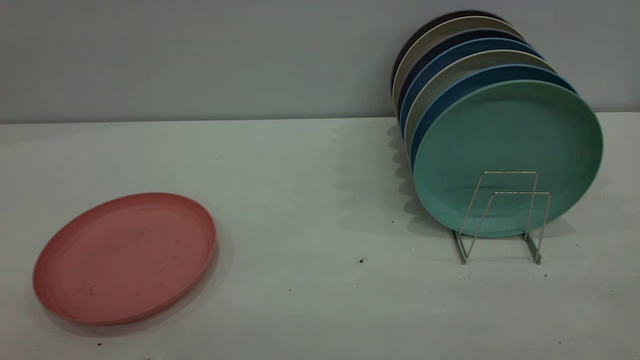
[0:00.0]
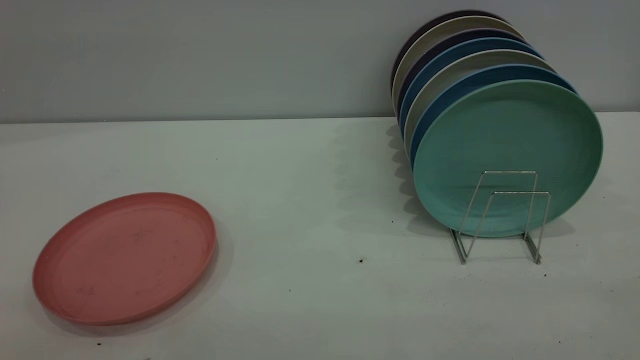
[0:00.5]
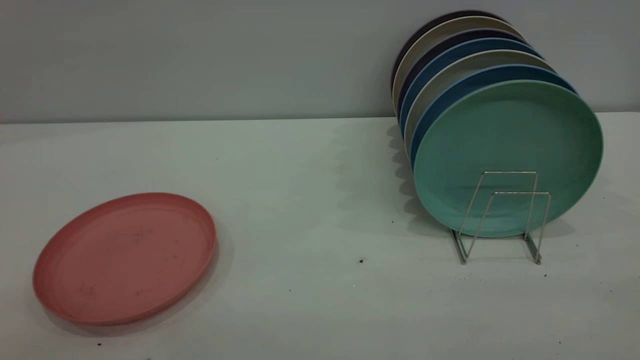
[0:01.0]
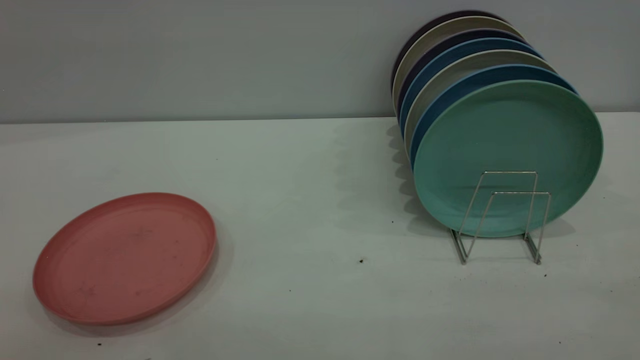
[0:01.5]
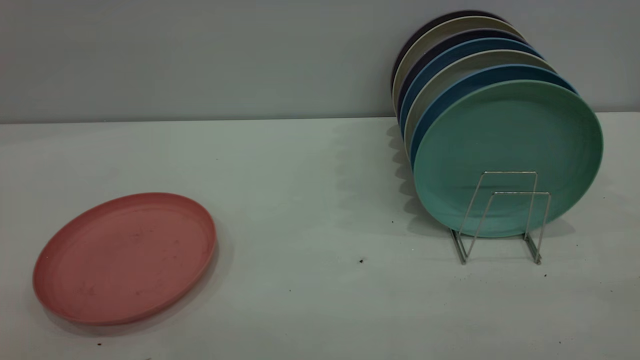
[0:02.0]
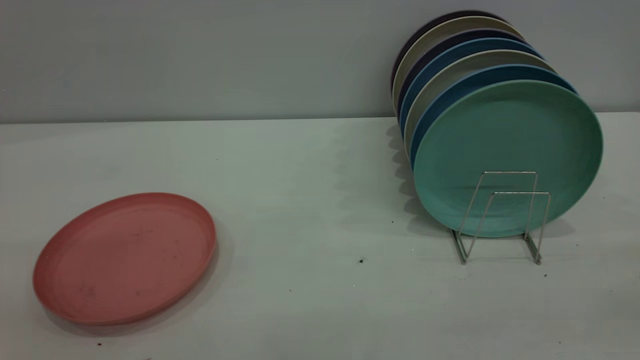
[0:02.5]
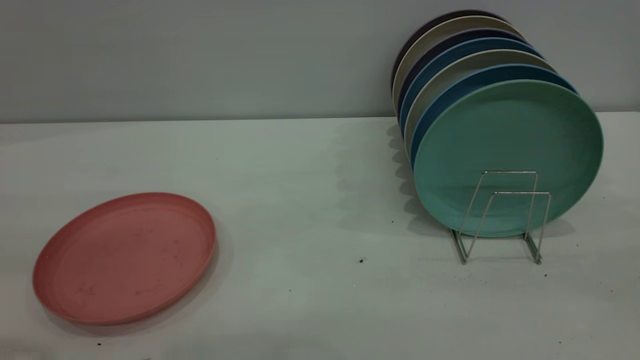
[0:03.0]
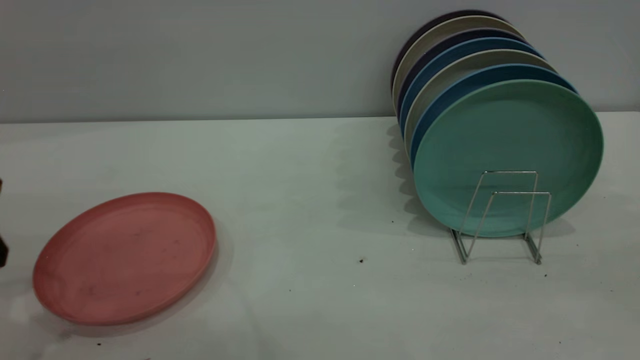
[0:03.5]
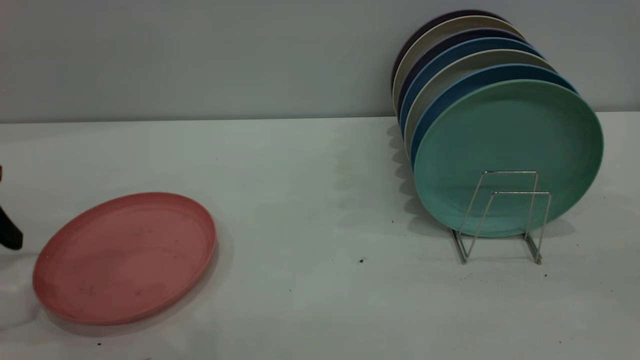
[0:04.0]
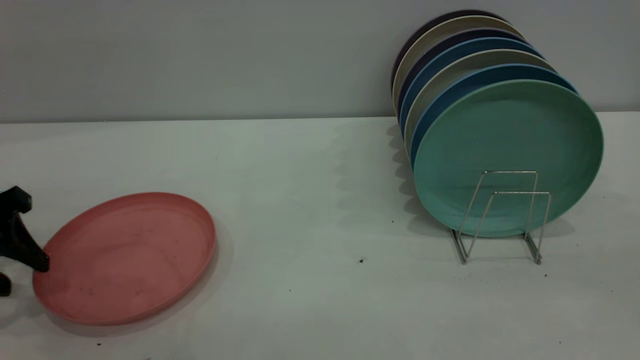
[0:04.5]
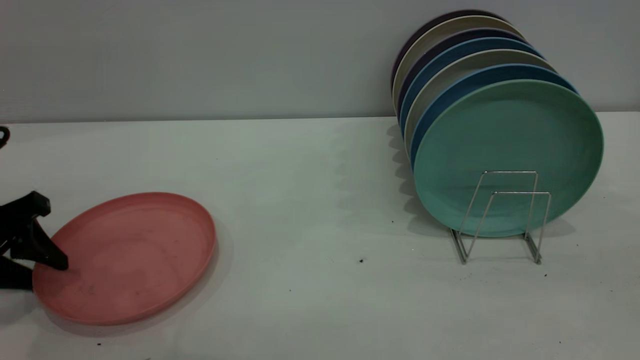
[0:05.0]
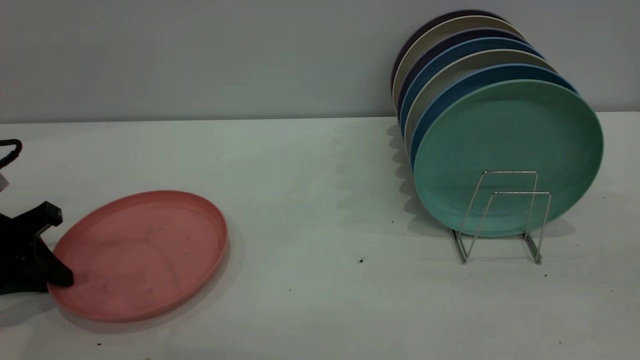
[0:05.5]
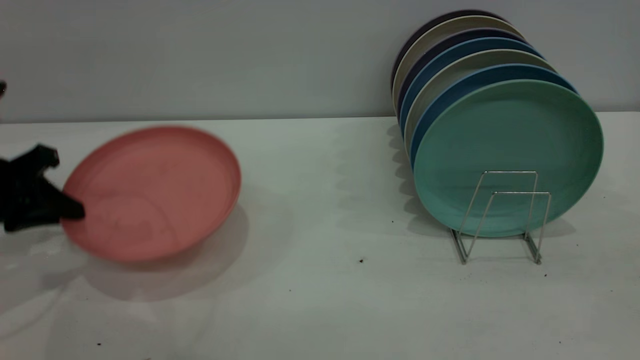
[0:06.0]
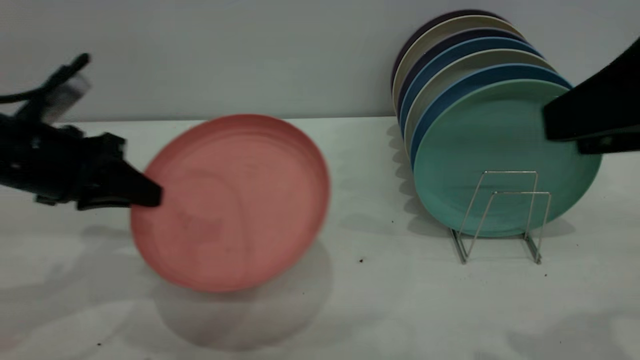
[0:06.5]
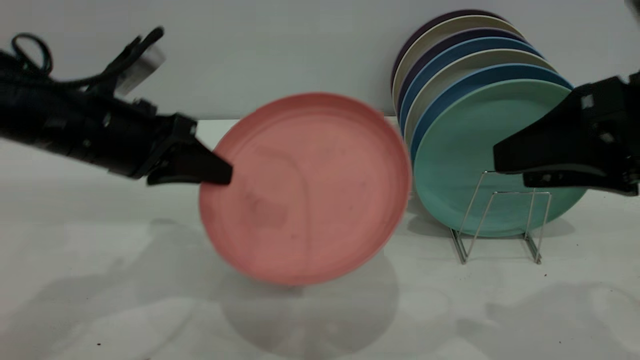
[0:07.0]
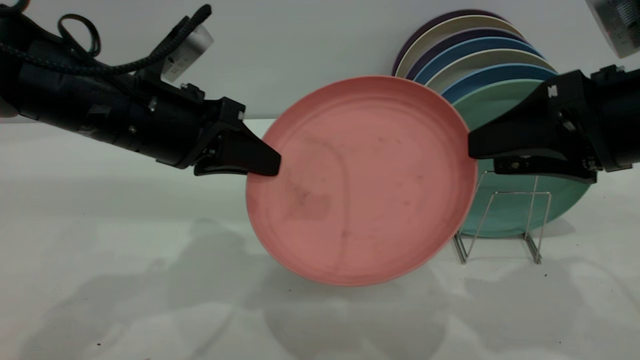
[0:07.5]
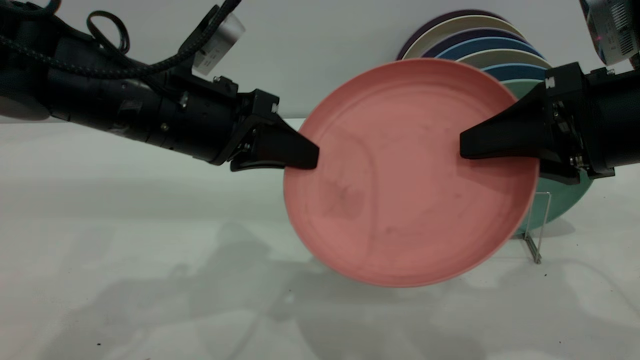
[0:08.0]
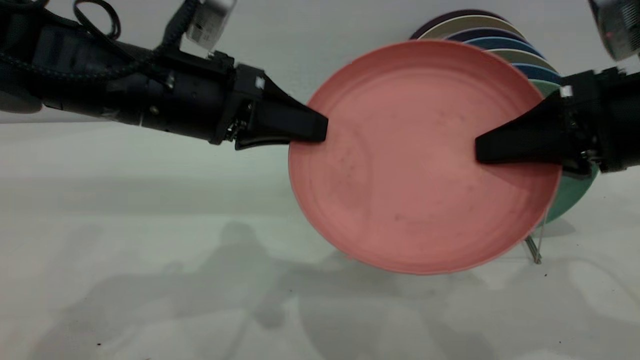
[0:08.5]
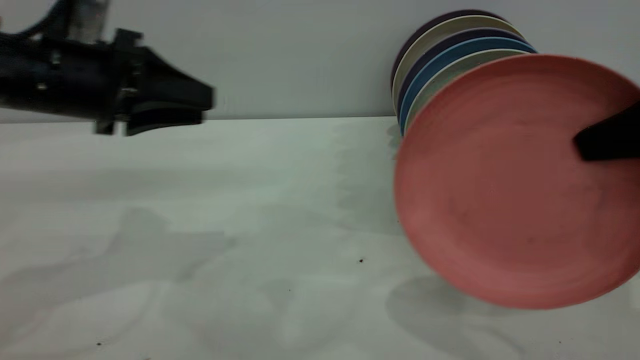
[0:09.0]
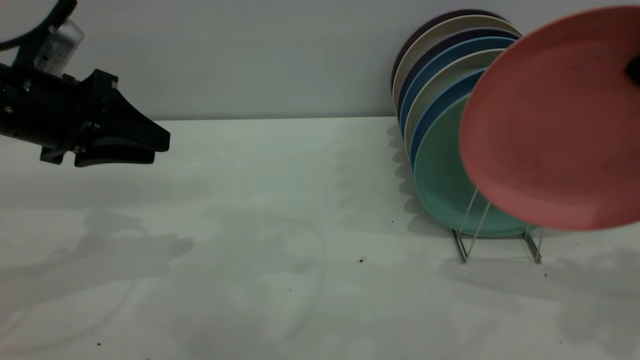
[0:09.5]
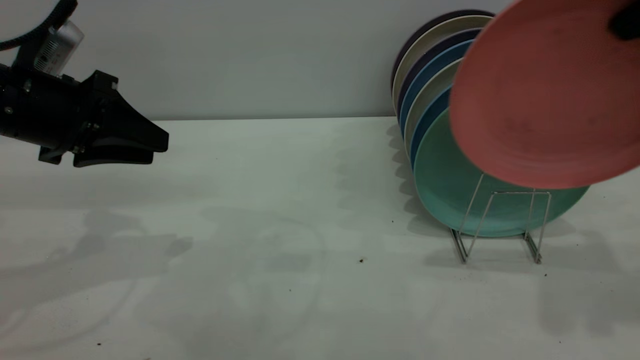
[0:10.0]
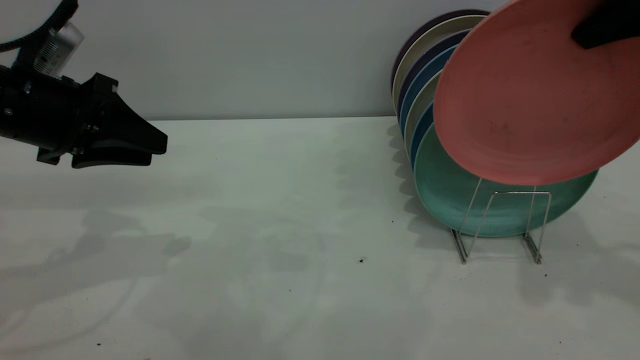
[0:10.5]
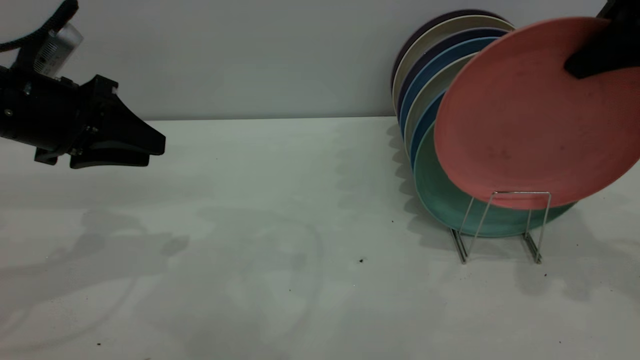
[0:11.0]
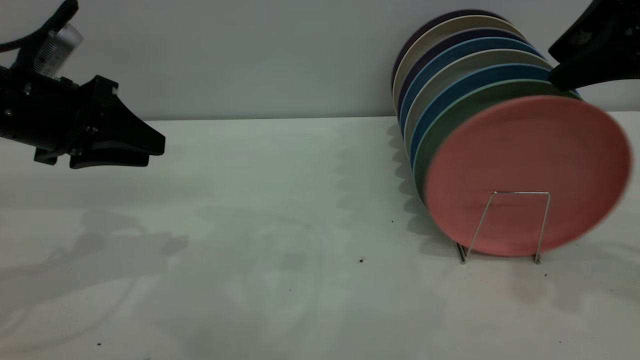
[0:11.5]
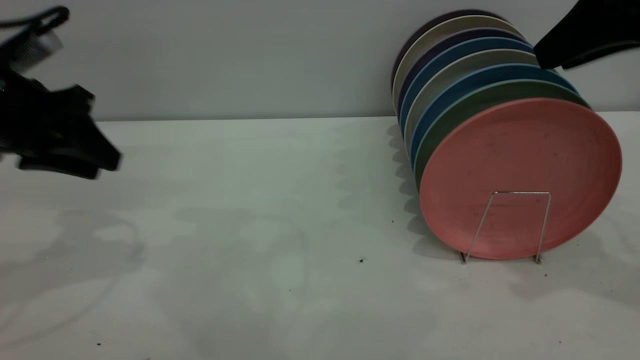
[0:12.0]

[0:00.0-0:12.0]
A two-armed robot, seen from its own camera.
Task of the whole recording: put the plate on the plate rack.
Step, 0:00.0 to 0:05.5: Pick up the plate with the left gripper.
Step, 0:06.0 to 0:08.5: Pass the plate from the left gripper to the right gripper.
0:00.0 to 0:02.0: Neither gripper changes place.
0:04.0 to 0:06.0: The left gripper changes place by roughly 5 cm, and closes up.
0:06.0 to 0:08.0: The left gripper is displaced to the right by approximately 20 cm, while the right gripper shifts roughly 20 cm forward and downward, and closes its fingers.
0:08.0 to 0:10.0: The left gripper shifts some 15 cm to the left, and opens. Meanwhile the right gripper heads upward and to the right, covering some 15 cm, and closes its fingers.
0:10.0 to 0:12.0: The right gripper opens.

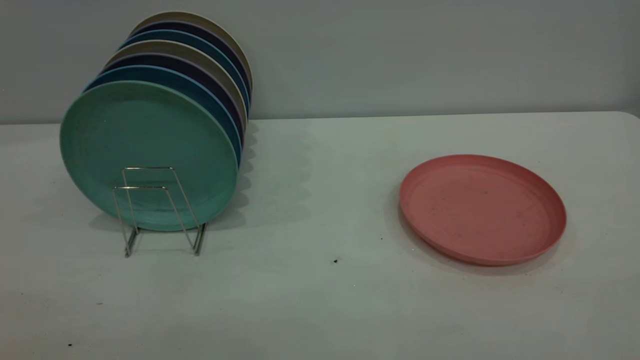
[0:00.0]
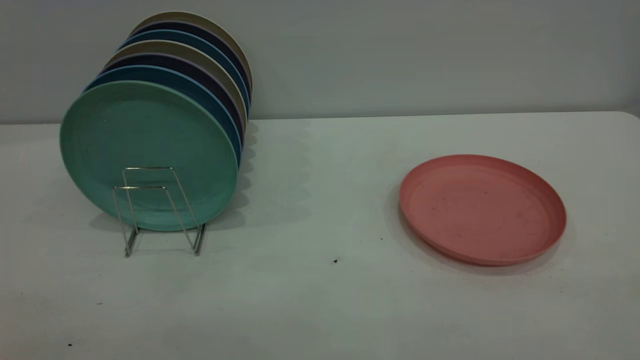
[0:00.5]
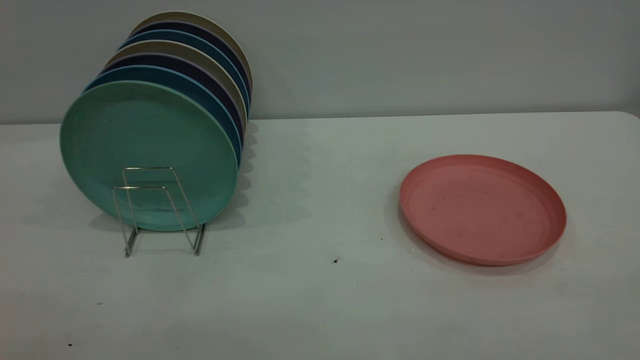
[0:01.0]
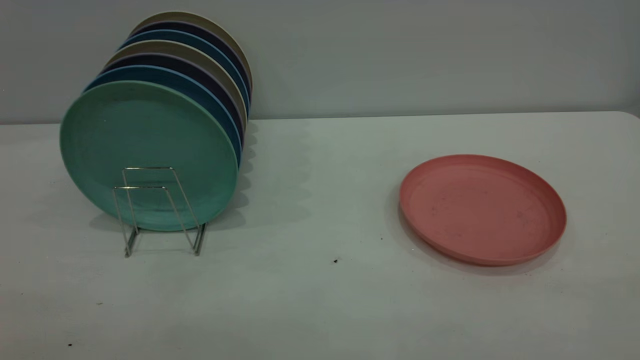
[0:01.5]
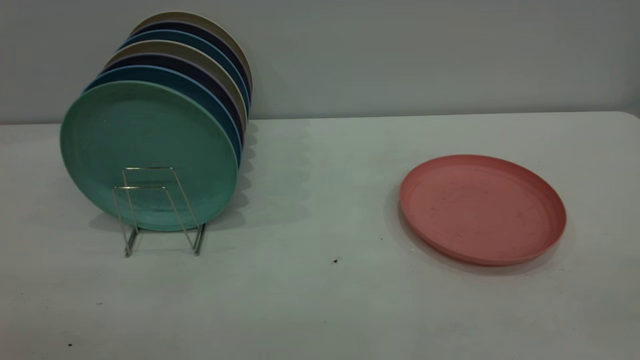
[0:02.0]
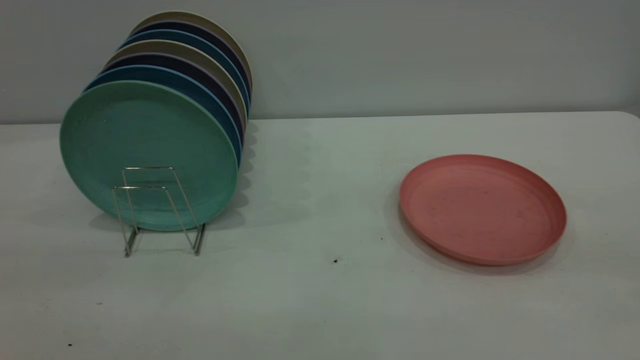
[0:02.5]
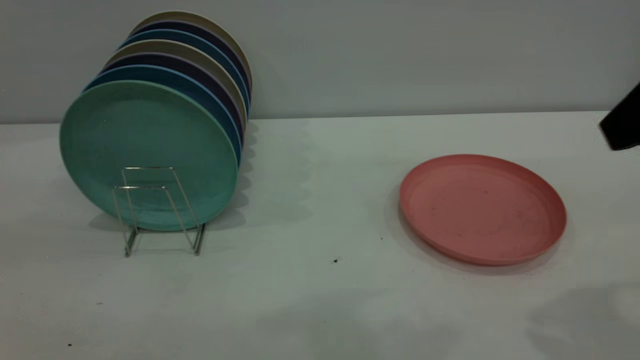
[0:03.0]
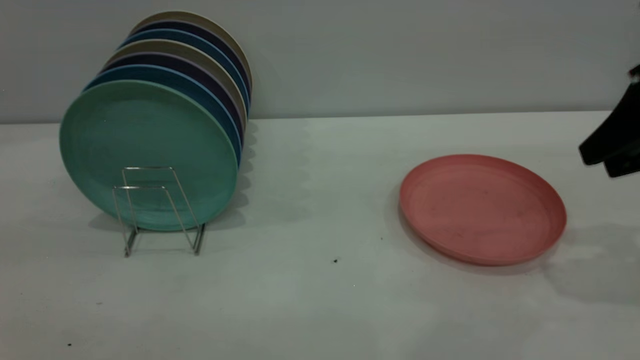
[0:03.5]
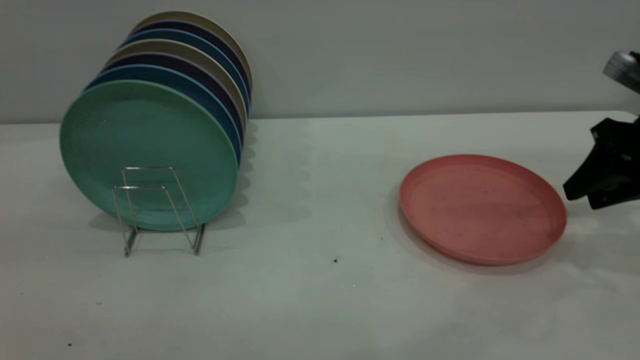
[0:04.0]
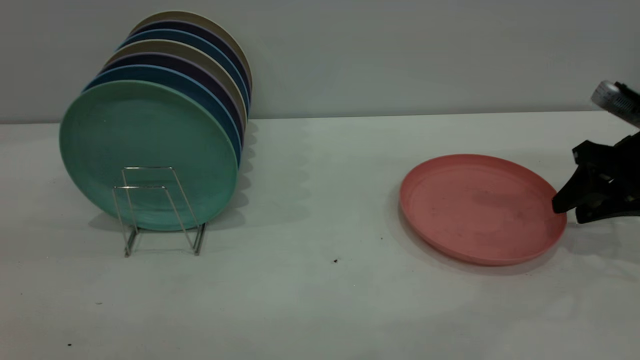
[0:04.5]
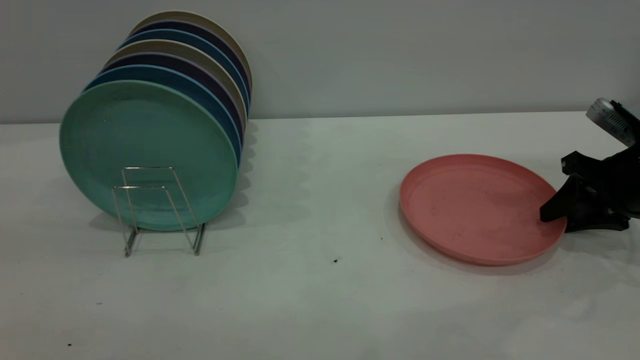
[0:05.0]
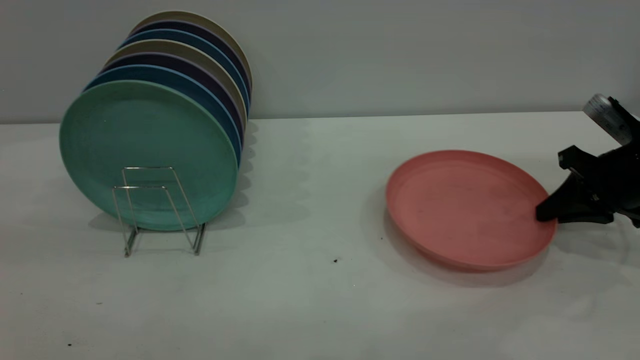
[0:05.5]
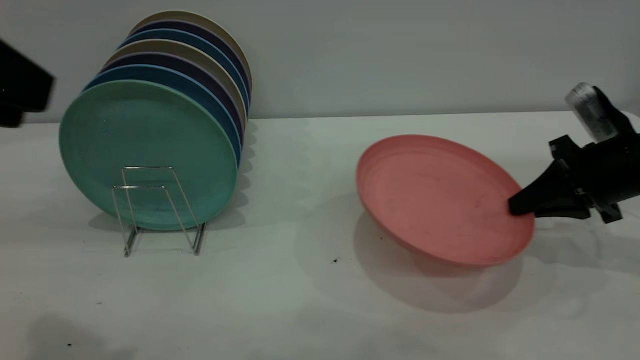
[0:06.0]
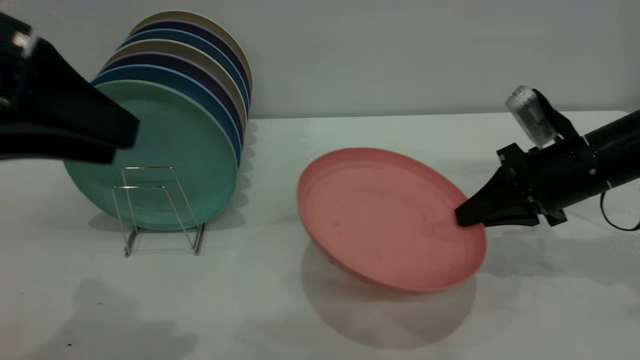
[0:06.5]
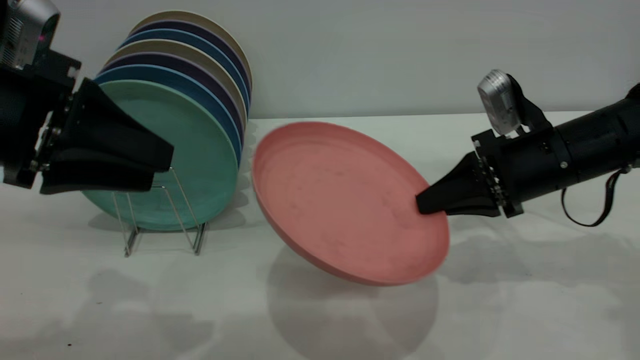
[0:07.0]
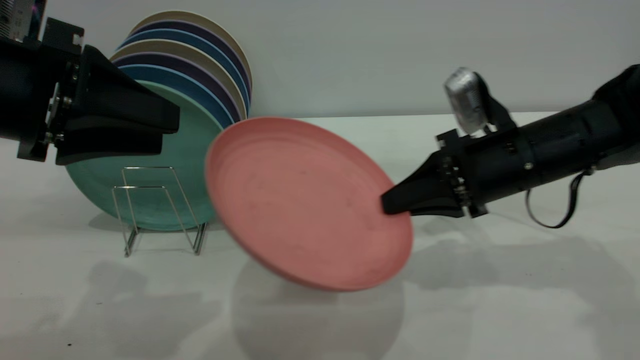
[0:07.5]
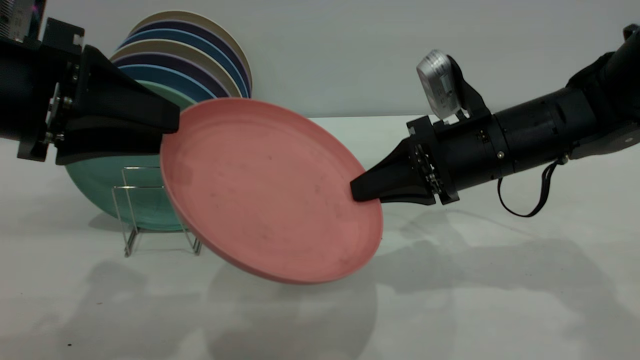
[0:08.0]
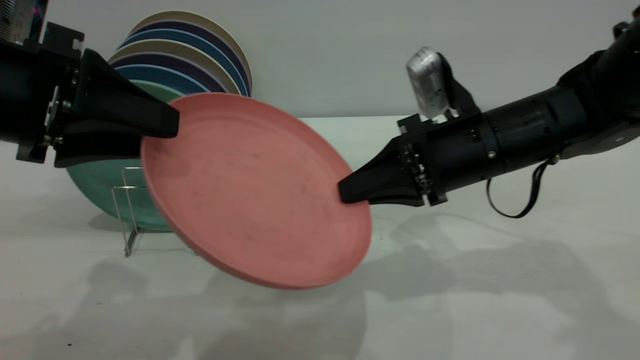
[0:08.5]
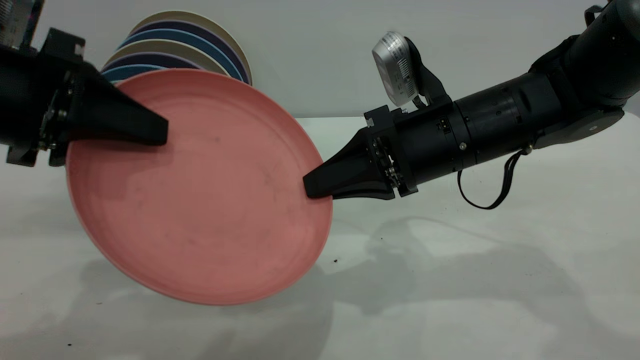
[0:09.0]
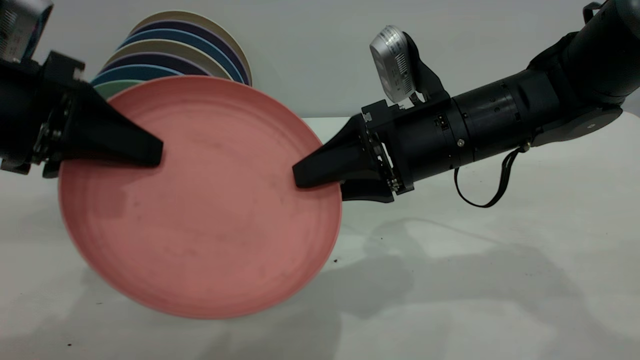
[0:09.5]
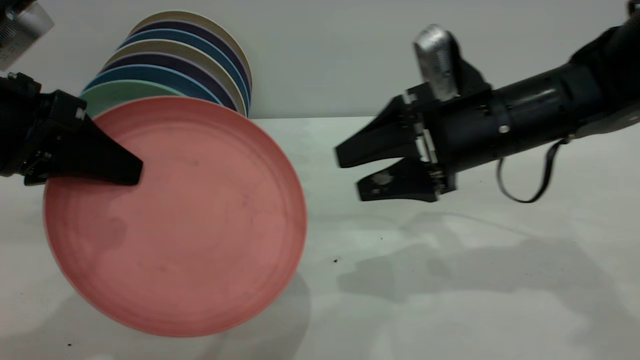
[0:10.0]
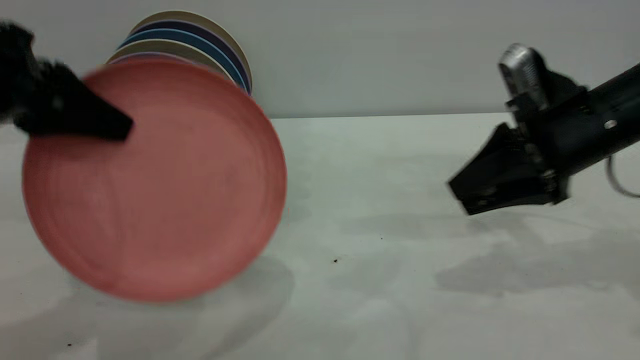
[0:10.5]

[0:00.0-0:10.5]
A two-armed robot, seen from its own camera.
Task of the whole recording: the right gripper grasp the pink plate, the right gripper pass the pink plate to the left gripper, and the left gripper place the pink plate on the plate rack.
Step, 0:00.0 to 0:05.5: Pick up the plate with the right gripper.
Step, 0:06.0 to 0:09.5: Pass the plate from the right gripper to the left gripper.
0:02.0 to 0:04.0: The right gripper shifts some 40 cm forward and downward.
0:04.0 to 0:06.5: The left gripper goes about 15 cm downward and forward; the right gripper moves to the left, some 10 cm, and closes.
0:06.5 to 0:08.5: The right gripper travels to the left by roughly 10 cm.
0:08.5 to 0:10.5: The right gripper heads to the right, covering roughly 10 cm, and opens its fingers. Meanwhile the left gripper closes its fingers.
